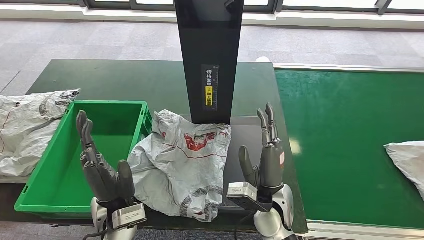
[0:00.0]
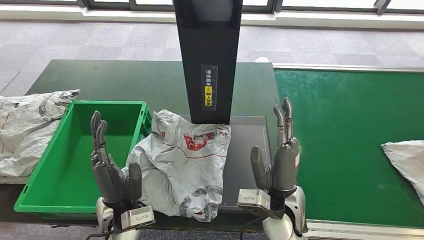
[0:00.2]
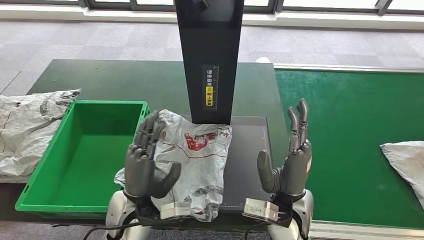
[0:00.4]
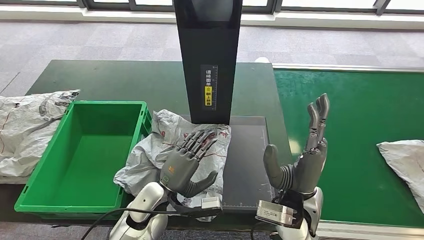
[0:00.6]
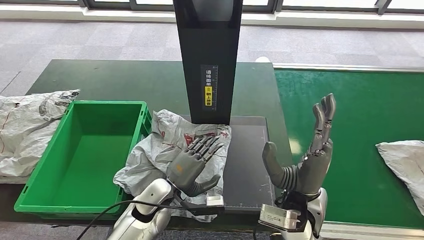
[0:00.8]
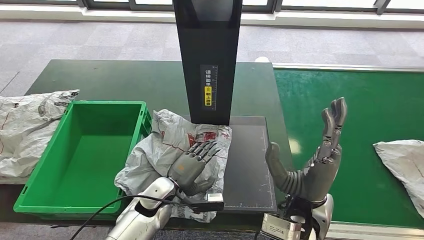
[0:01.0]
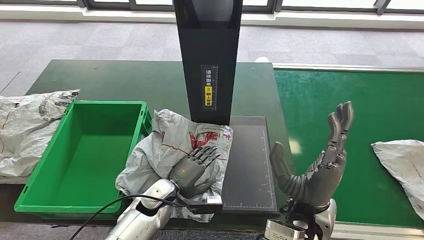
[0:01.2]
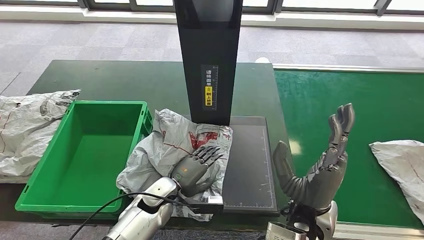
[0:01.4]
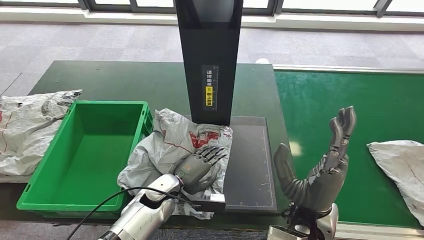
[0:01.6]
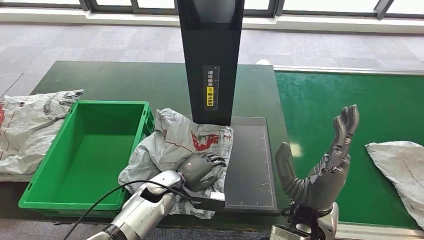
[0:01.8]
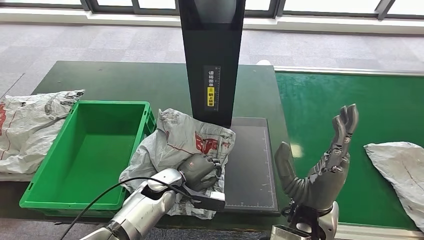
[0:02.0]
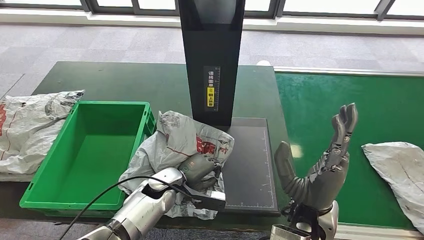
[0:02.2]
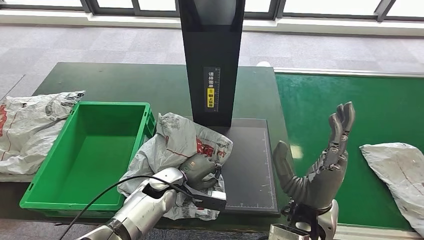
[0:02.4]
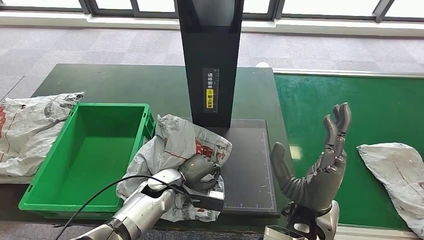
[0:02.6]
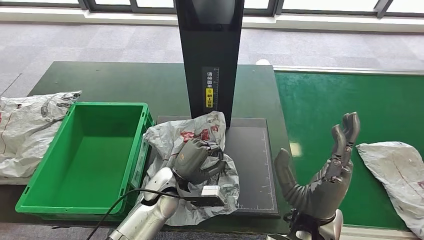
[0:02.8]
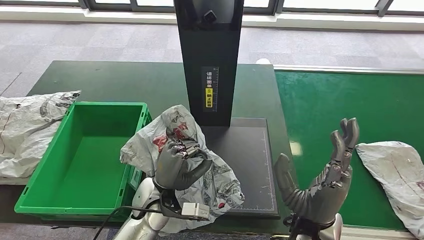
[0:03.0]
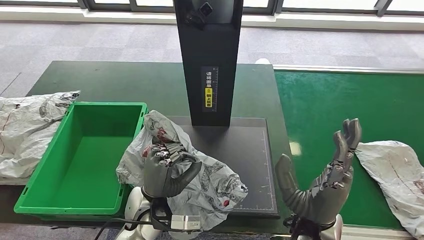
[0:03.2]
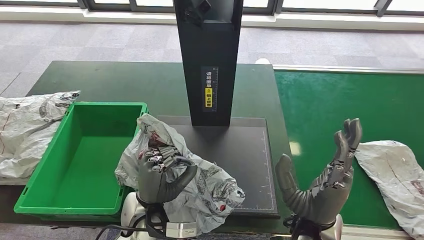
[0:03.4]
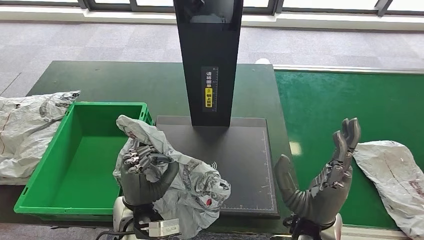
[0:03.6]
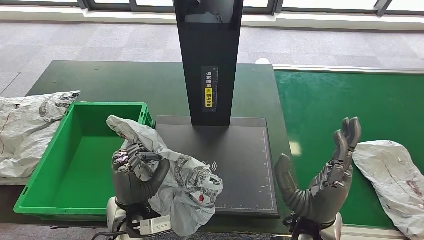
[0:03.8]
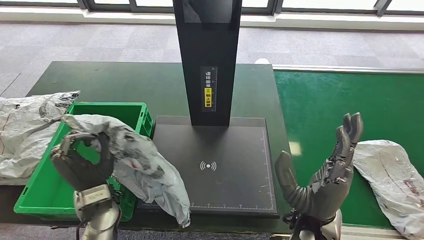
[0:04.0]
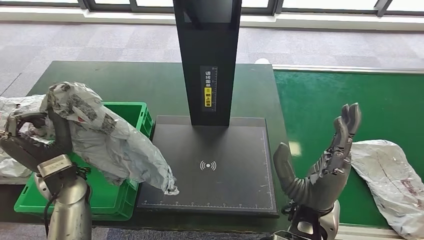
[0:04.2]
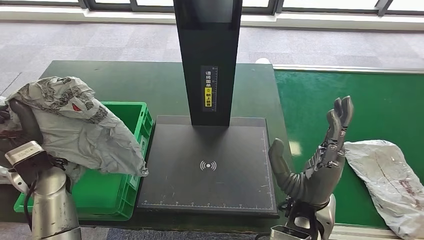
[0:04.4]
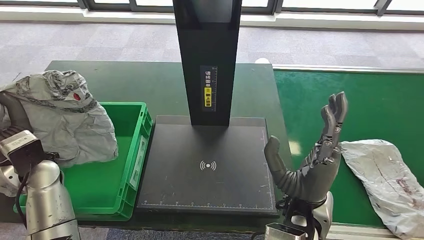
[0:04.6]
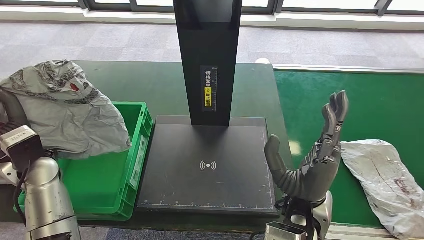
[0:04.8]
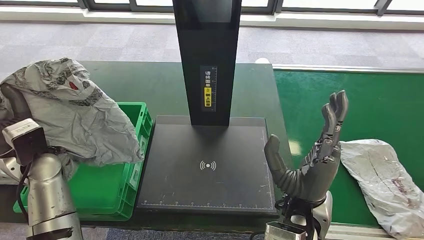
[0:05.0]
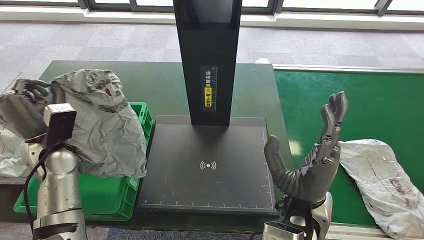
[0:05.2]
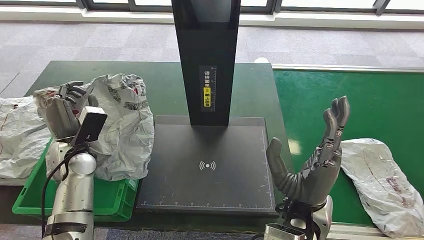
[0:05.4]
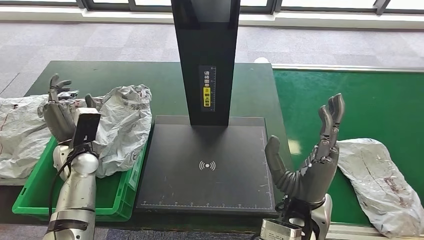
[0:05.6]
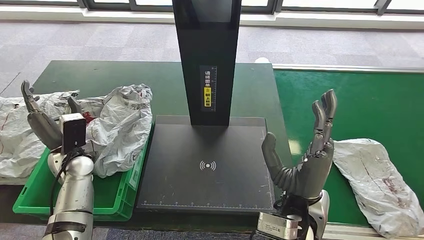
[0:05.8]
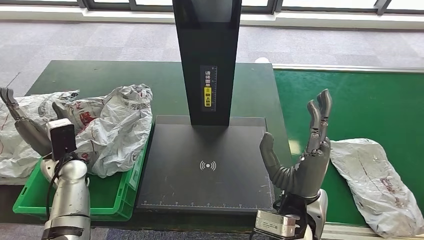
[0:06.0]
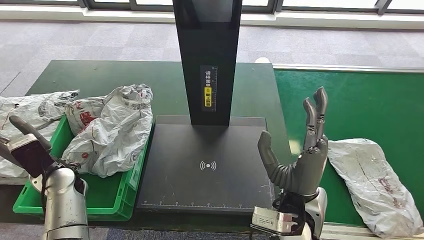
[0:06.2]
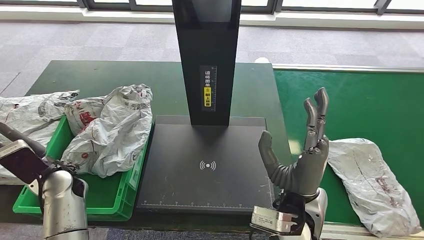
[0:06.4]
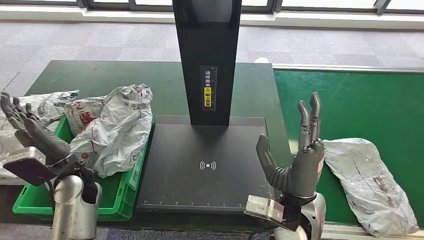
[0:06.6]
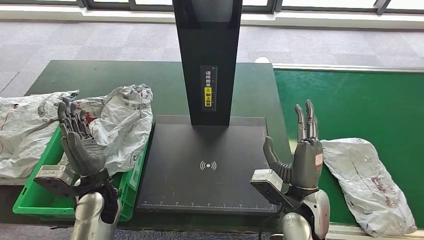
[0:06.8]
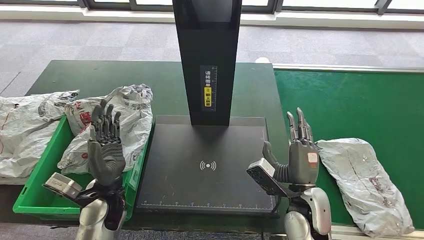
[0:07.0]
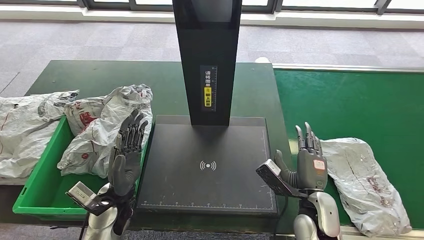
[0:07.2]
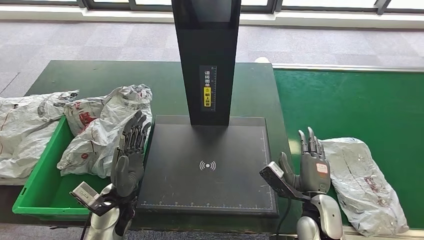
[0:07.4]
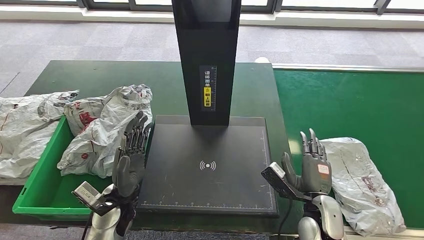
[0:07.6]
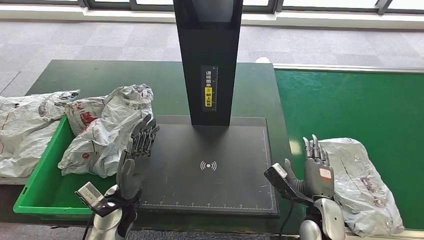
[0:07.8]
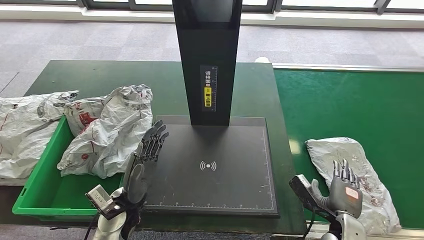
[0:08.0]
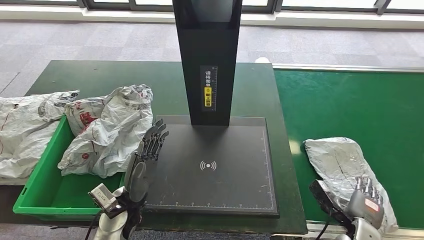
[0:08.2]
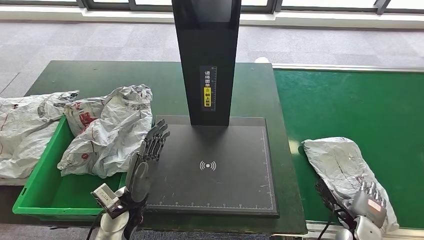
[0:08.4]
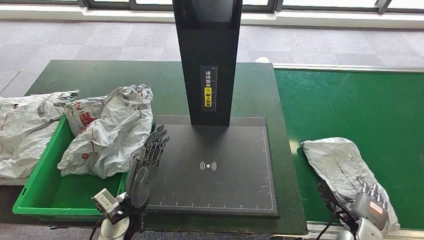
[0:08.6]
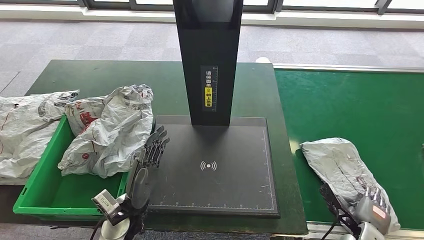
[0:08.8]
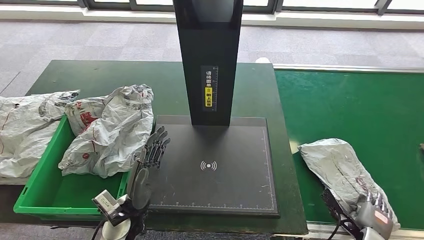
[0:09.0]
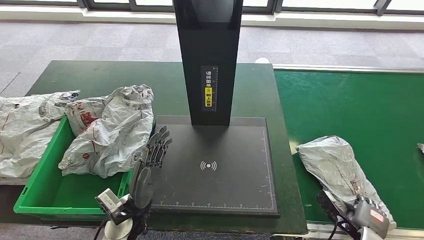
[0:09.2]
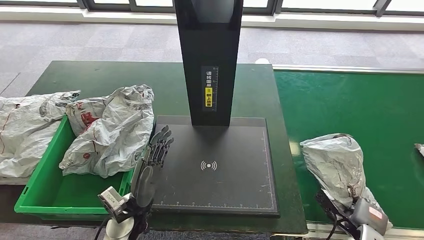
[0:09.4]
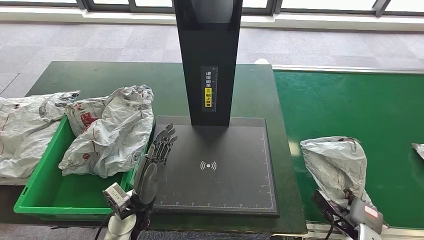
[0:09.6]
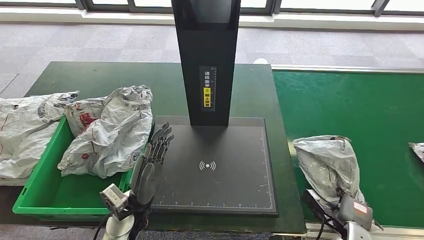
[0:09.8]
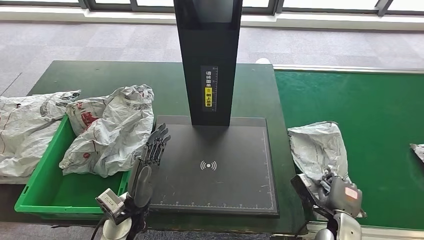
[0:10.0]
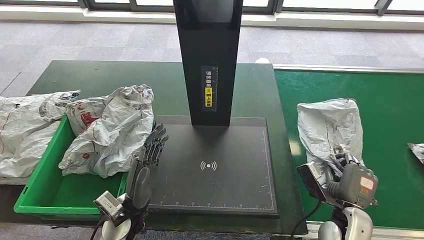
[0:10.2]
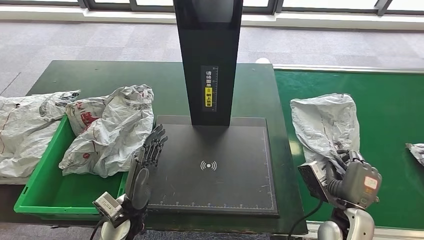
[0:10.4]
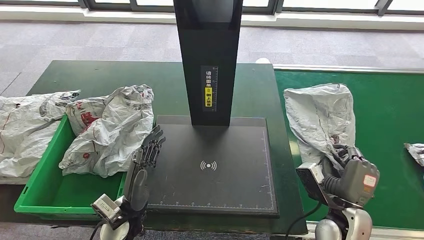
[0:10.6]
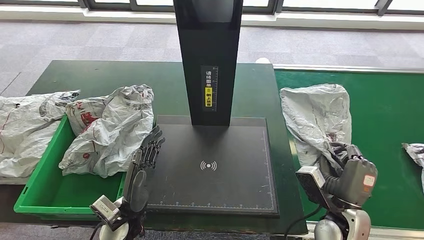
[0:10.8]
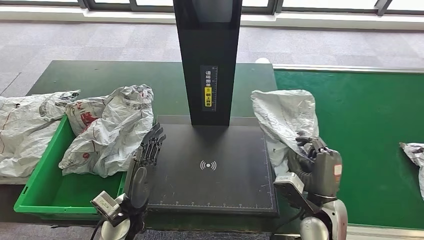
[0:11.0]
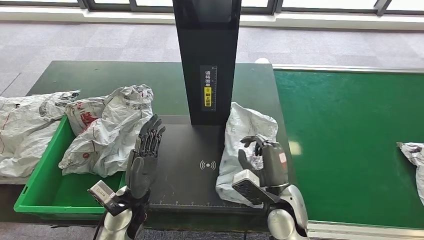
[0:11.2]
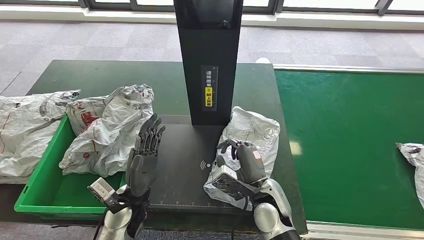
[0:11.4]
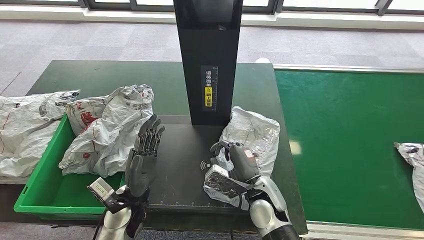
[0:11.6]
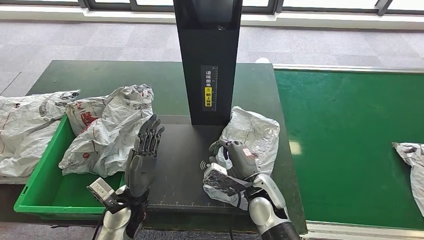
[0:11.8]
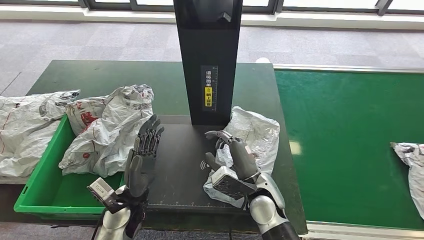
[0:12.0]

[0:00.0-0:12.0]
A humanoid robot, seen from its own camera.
Step, 0:00.0 to 0:03.6: Pick up the parcel from the inbound machine.
Step, 0:03.8 to 0:06.2: Put the parcel inside the courier box.
Step, 0:06.4 to 0:10.0: Pick up the parcel from the conveyor belt.
0:06.0 to 0:07.6: The left hand moves to the right and backward, some 20 cm. The right hand travels downward and to the right by approximately 15 cm.
0:07.6 to 0:09.0: The right hand shifts some 15 cm to the right and downward.
0:09.0 to 0:10.4: The right hand is displaced upward and to the left by some 15 cm.
0:10.4 to 0:12.0: The right hand moves to the left, about 20 cm.

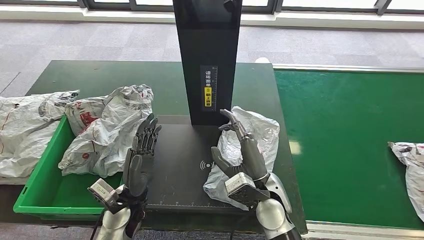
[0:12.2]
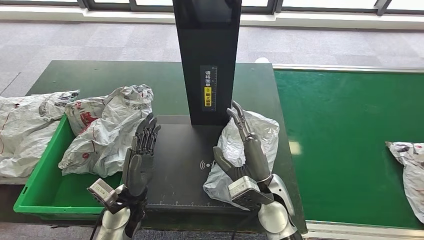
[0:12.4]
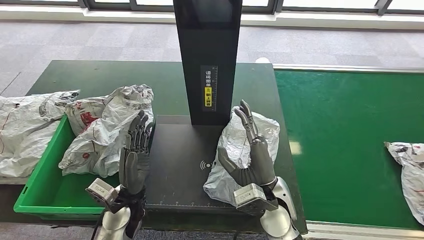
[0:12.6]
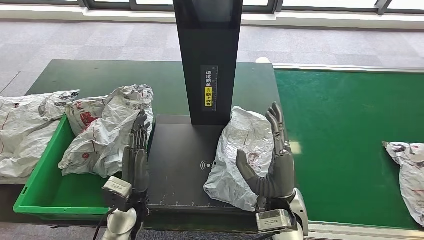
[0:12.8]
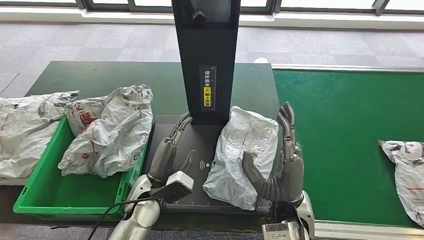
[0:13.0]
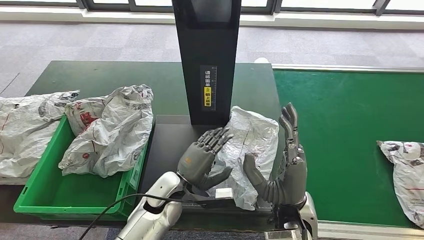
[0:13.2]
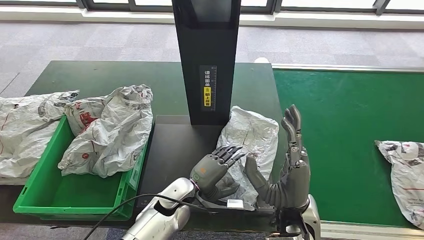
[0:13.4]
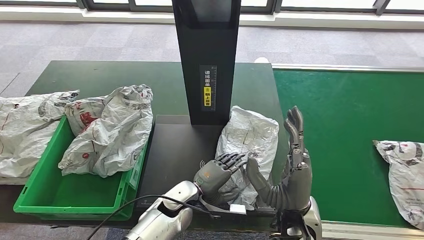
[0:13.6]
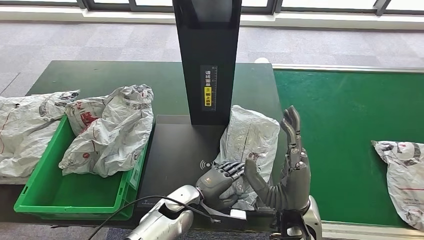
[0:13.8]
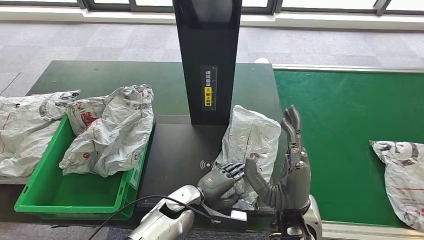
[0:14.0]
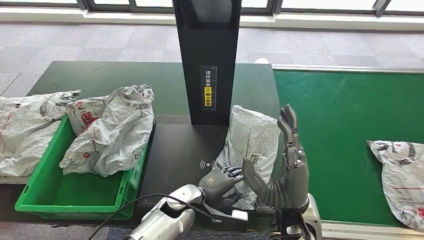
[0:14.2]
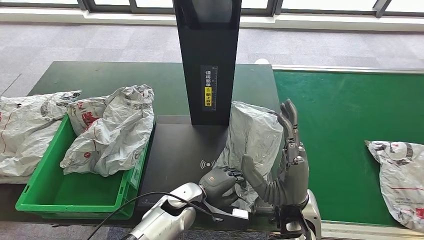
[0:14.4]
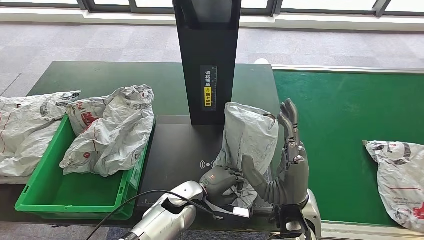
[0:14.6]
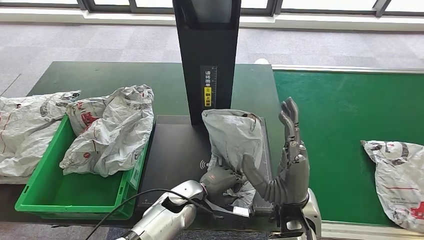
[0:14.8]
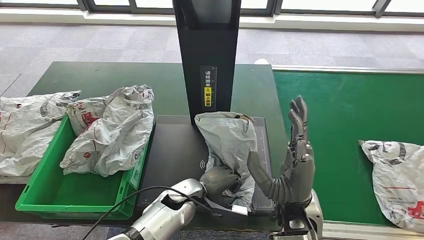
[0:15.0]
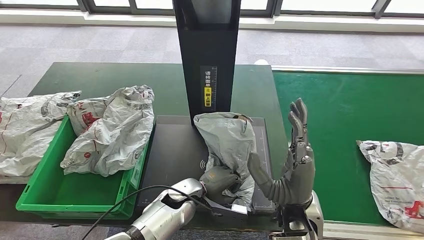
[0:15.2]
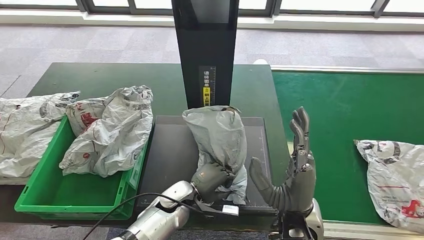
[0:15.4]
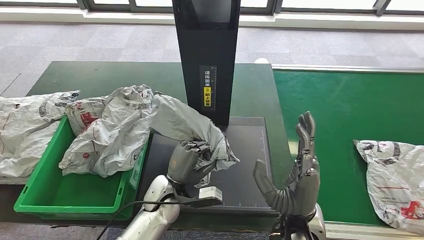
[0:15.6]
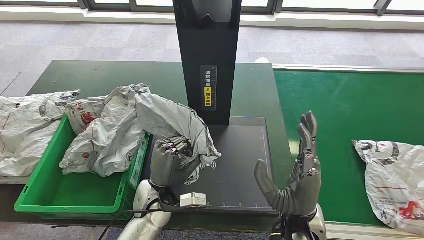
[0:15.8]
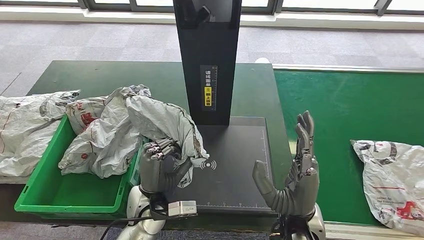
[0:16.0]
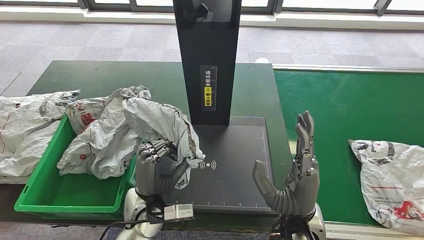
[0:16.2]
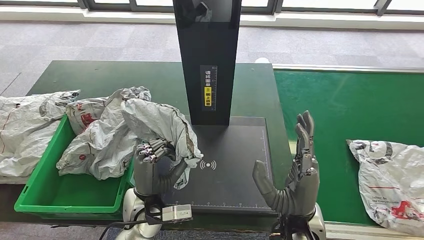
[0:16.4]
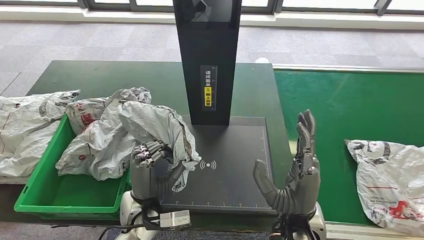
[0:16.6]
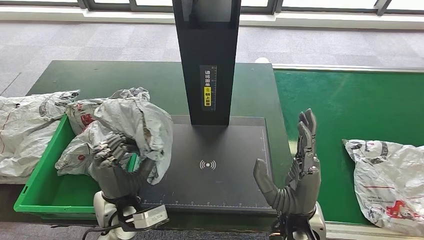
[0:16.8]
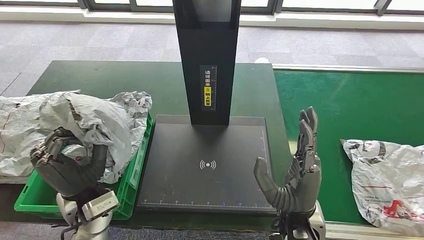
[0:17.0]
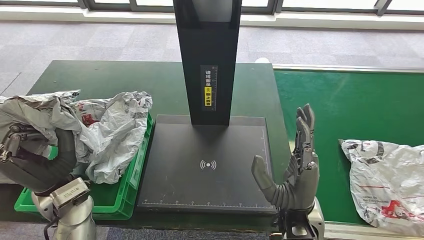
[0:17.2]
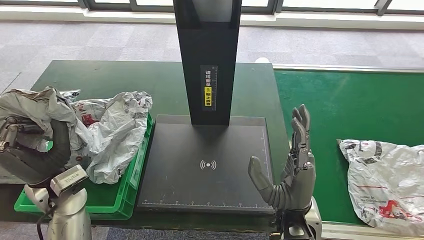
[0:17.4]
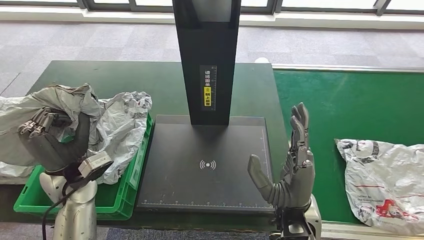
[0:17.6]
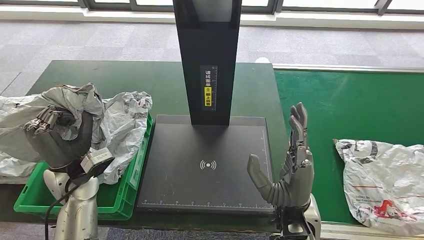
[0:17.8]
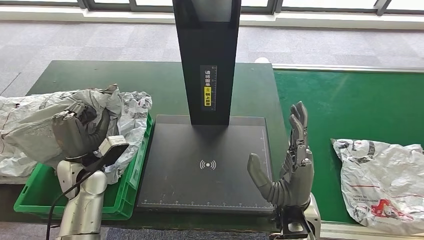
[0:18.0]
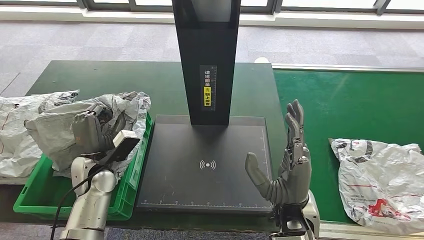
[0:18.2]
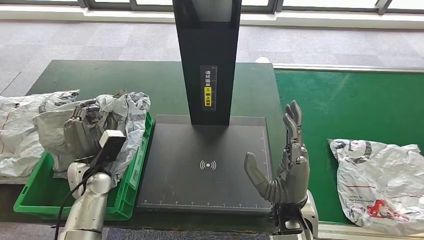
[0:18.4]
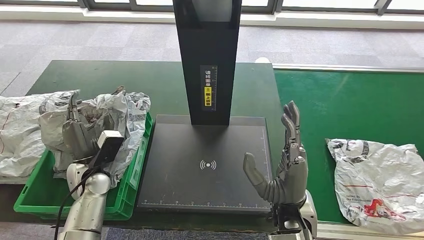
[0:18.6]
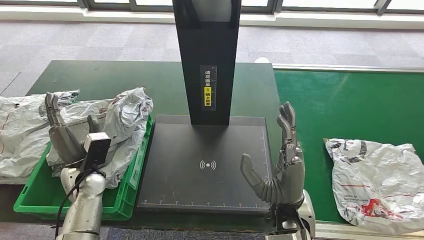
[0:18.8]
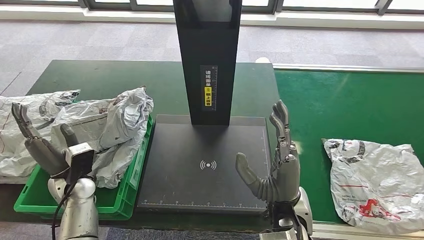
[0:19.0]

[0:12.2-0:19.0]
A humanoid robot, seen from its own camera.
Step, 0:12.4 to 0:14.6: Pick up the parcel from the inbound machine.
0:12.2 to 0:13.6: The right hand moves backward, some 5 cm; the left hand travels to the right by about 10 cm.
